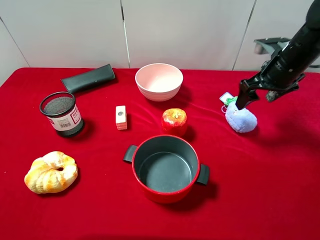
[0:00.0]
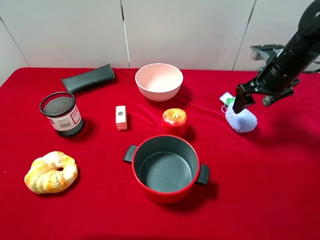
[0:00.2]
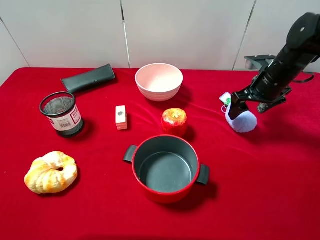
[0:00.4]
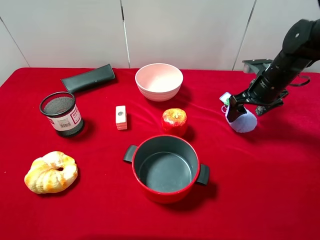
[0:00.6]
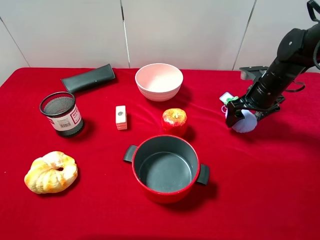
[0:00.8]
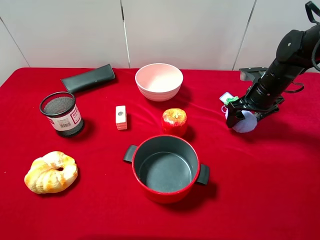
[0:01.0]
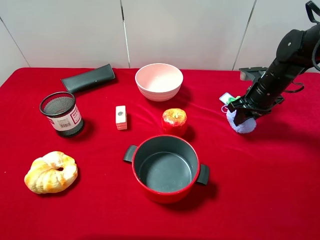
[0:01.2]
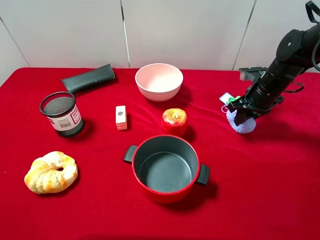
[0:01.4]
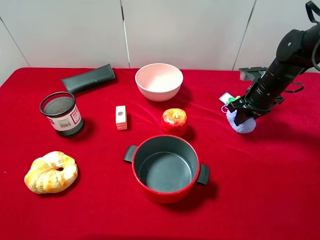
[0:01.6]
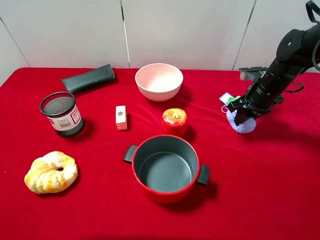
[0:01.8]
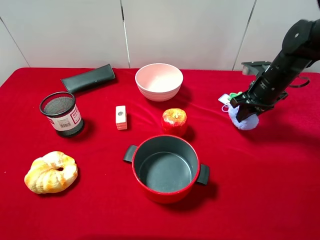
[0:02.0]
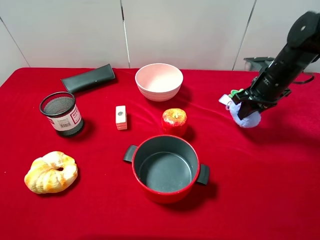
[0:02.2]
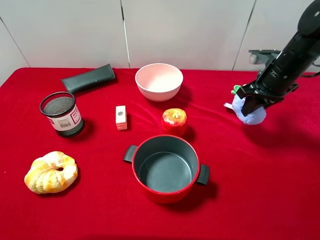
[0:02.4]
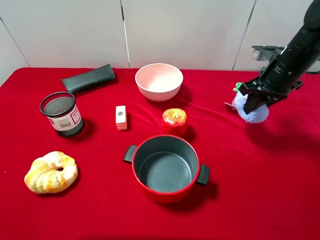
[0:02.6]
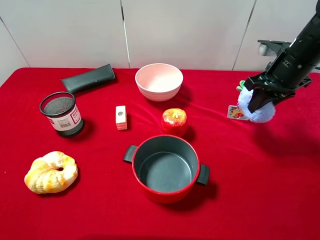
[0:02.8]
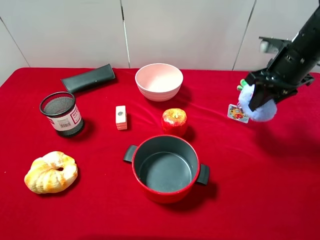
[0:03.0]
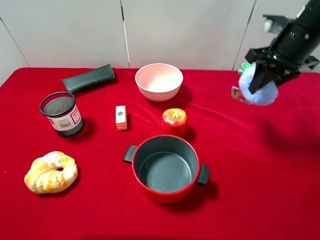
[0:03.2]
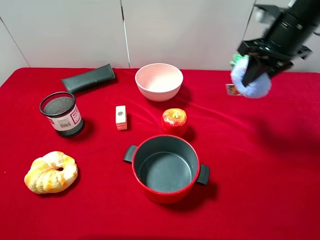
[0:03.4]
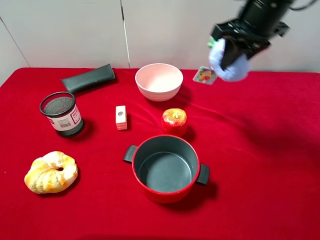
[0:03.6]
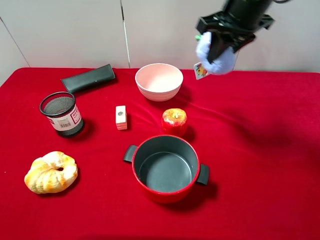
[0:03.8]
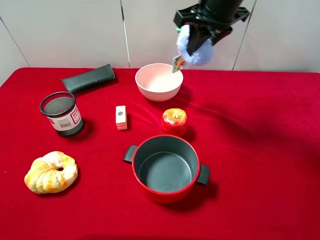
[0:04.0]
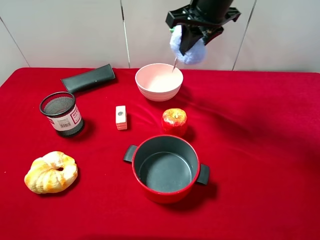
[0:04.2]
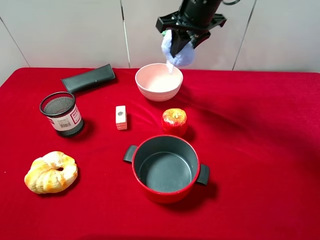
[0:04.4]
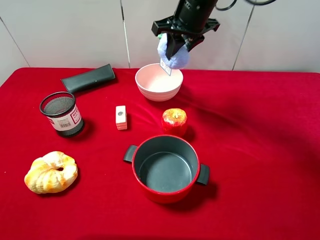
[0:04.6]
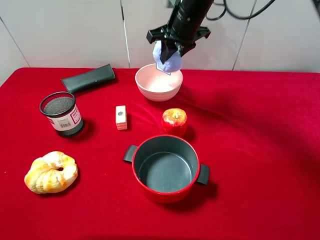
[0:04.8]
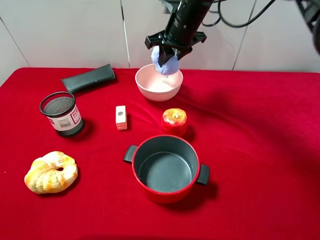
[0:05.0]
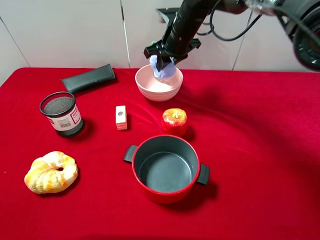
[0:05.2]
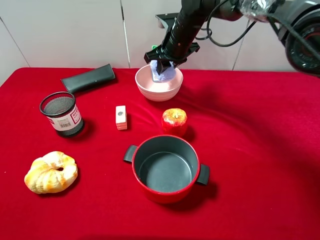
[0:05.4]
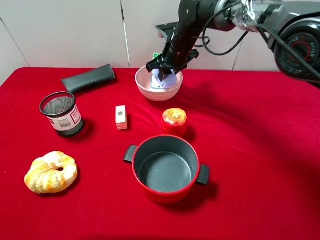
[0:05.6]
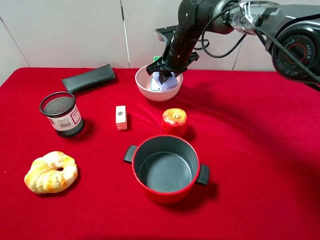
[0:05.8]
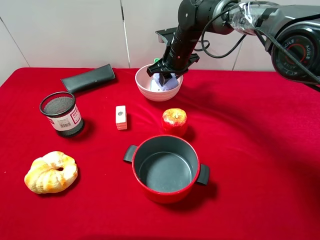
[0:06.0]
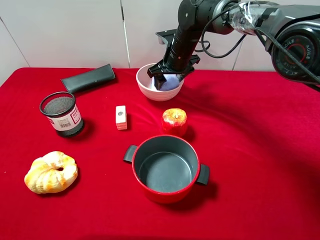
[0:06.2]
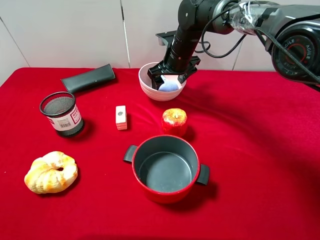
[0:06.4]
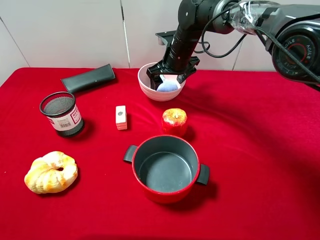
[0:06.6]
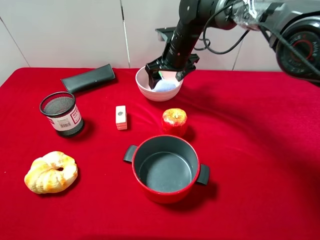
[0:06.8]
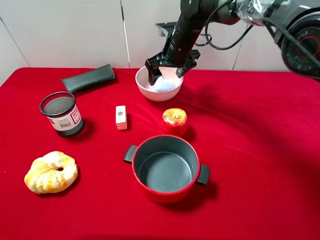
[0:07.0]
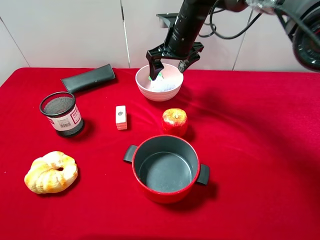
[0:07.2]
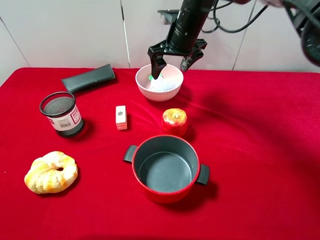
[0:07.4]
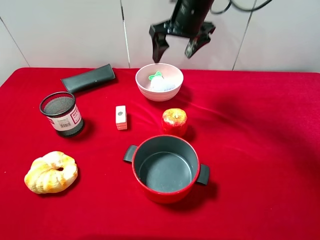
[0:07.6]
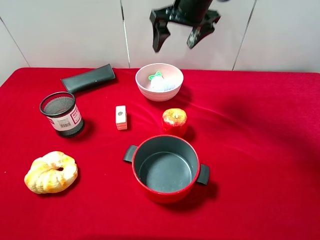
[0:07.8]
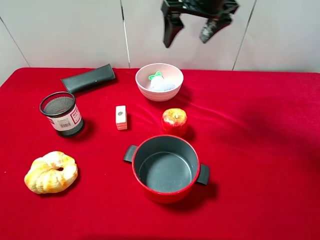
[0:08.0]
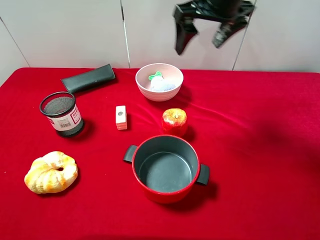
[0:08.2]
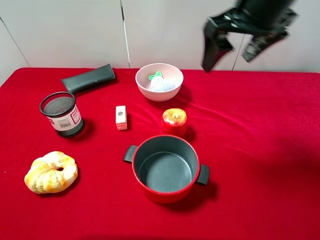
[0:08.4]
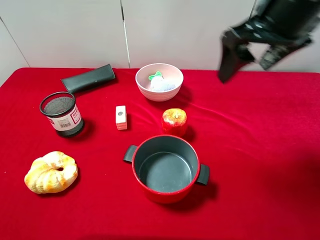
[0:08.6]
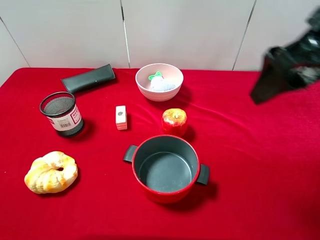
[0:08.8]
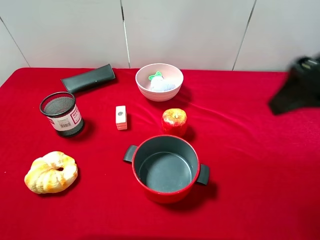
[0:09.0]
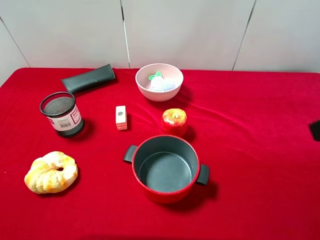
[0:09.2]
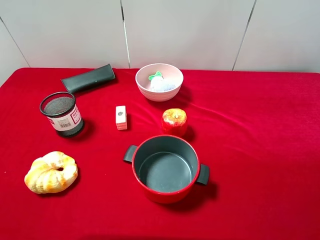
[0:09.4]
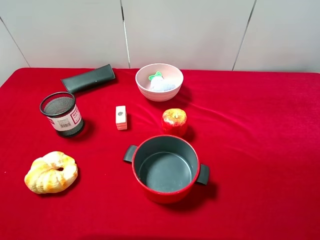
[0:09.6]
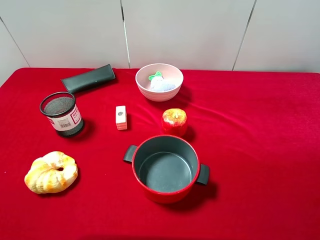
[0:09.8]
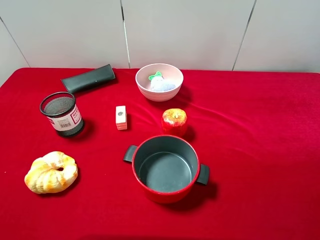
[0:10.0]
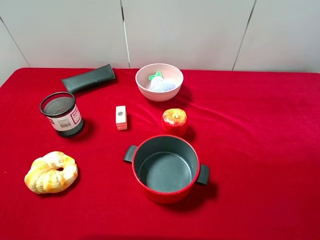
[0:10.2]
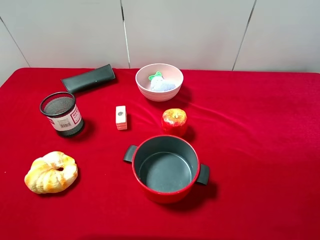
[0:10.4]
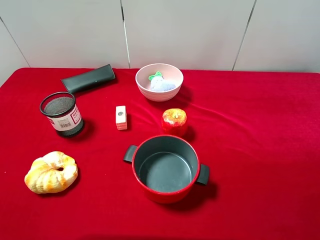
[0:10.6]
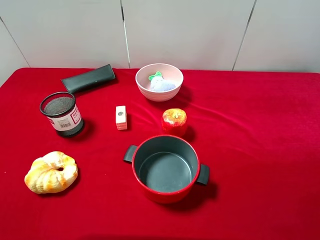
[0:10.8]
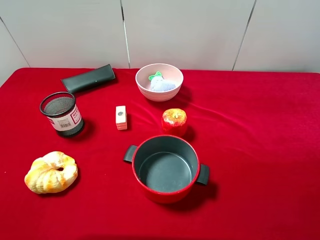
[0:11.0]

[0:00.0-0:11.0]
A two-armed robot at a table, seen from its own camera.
Task of the whole recording: pick up an item with a gripper and place it in a random container on the desktop.
0:00.0 to 0:01.6: The right gripper travels downward by approximately 5 cm, and closes up.
0:01.6 to 0:03.2: The right gripper goes about 15 cm upward.
0:03.2 to 0:04.8: The right gripper goes roughly 20 cm to the left and forward.
0:04.8 to 0:06.2: The right gripper moves downward, some 10 cm, and opens.
0:06.2 to 0:07.8: The right gripper shifts approximately 15 cm upward.
0:07.8 to 0:09.4: The right gripper goes about 40 cm backward and to the right.
